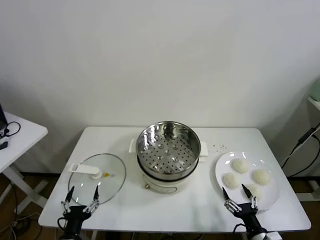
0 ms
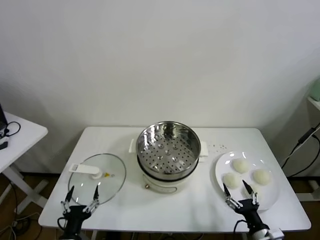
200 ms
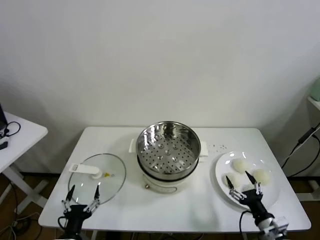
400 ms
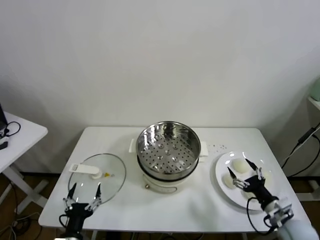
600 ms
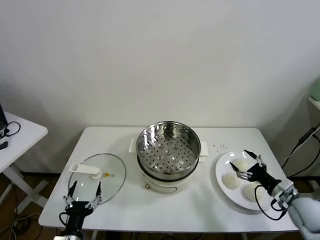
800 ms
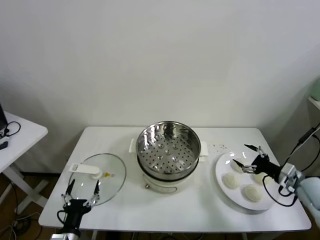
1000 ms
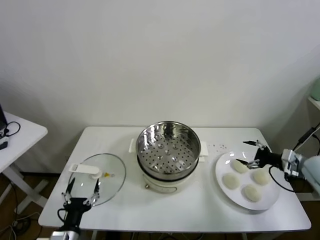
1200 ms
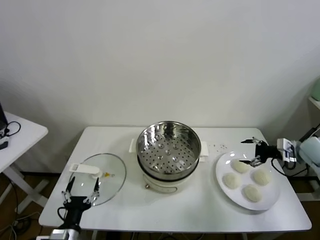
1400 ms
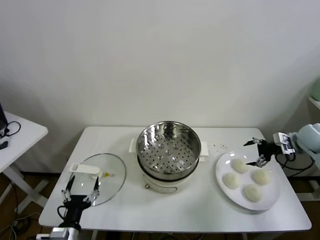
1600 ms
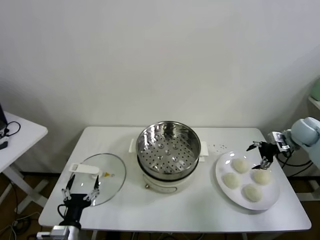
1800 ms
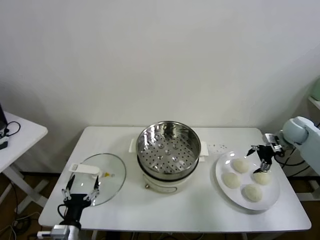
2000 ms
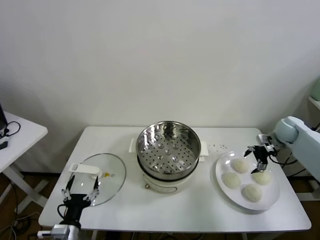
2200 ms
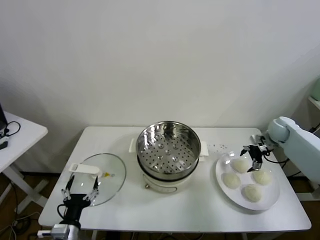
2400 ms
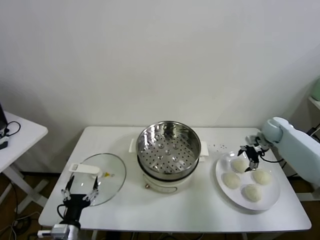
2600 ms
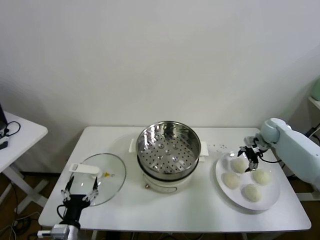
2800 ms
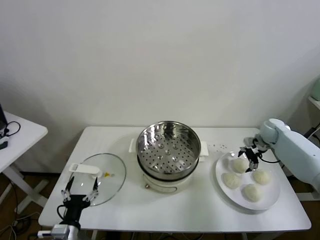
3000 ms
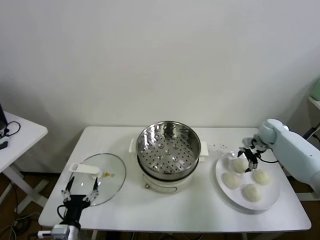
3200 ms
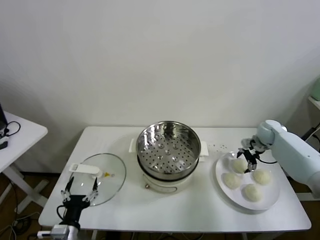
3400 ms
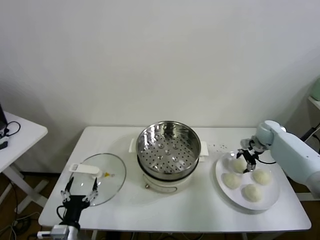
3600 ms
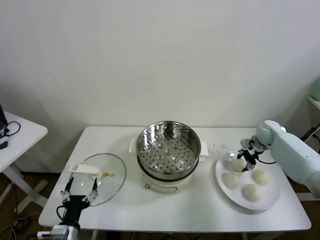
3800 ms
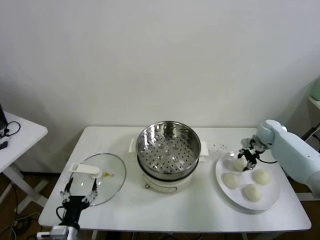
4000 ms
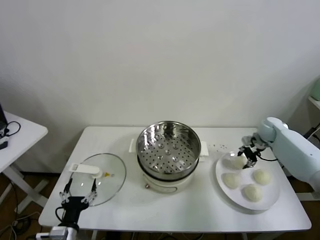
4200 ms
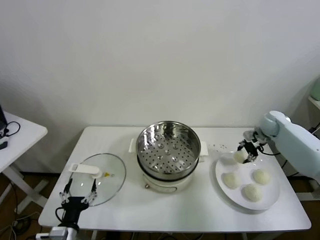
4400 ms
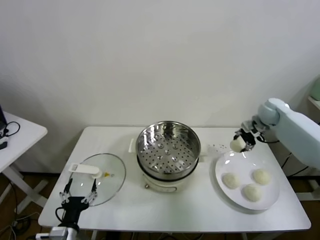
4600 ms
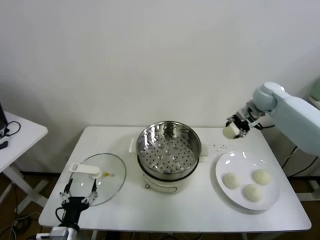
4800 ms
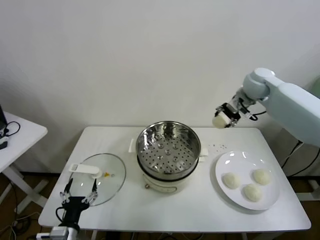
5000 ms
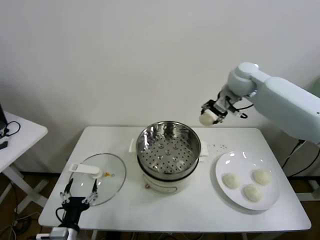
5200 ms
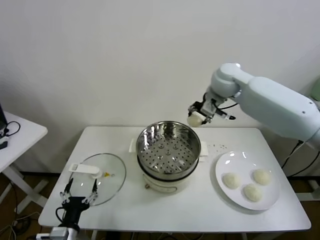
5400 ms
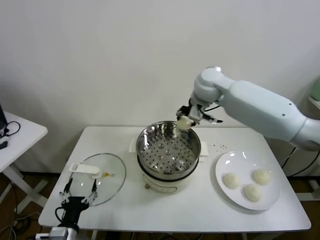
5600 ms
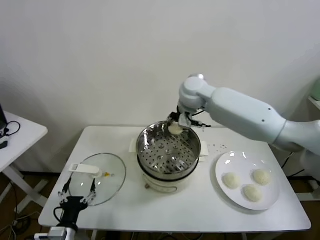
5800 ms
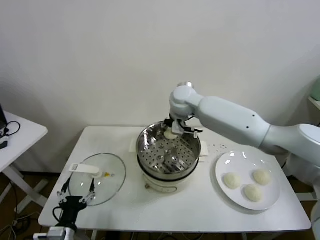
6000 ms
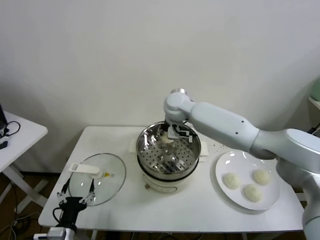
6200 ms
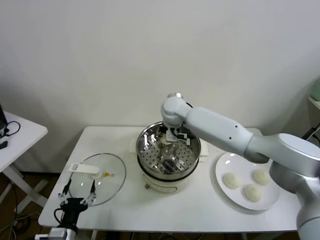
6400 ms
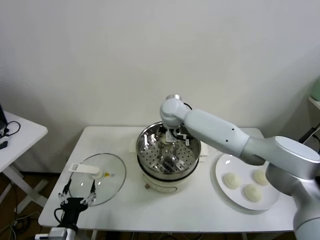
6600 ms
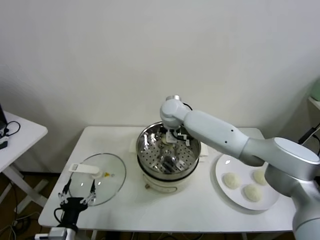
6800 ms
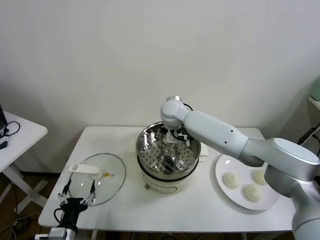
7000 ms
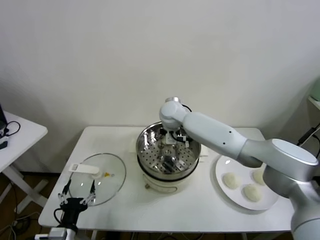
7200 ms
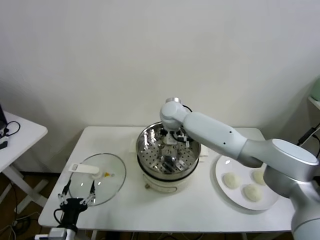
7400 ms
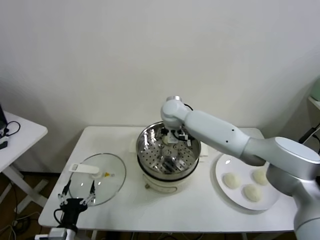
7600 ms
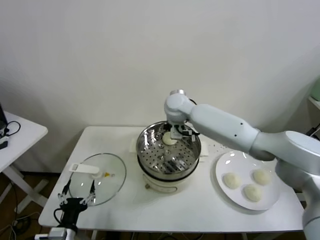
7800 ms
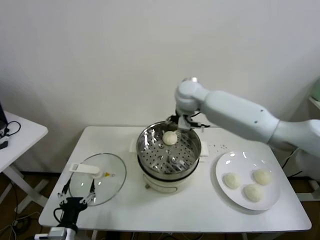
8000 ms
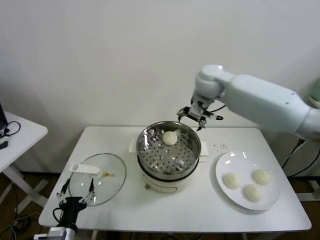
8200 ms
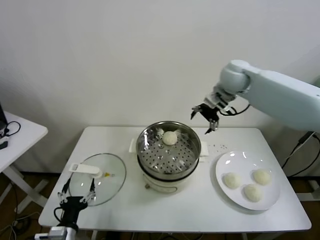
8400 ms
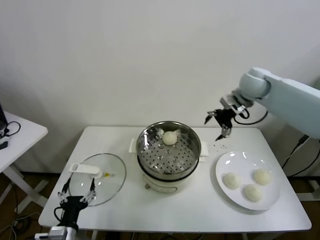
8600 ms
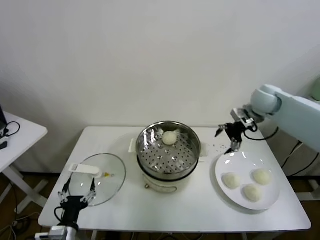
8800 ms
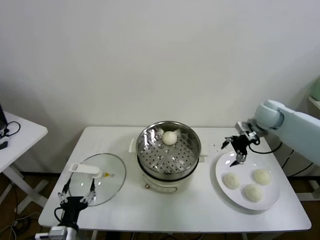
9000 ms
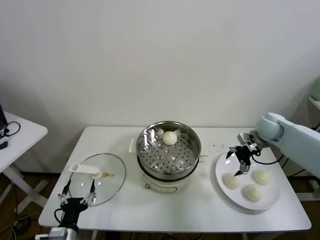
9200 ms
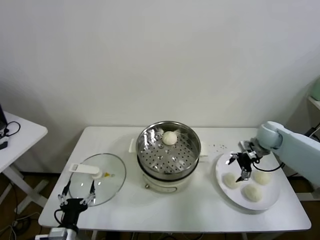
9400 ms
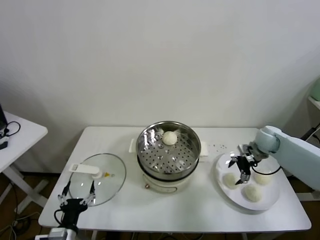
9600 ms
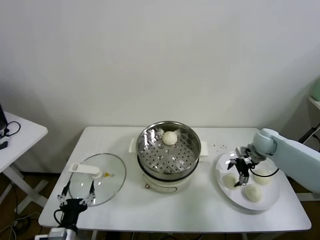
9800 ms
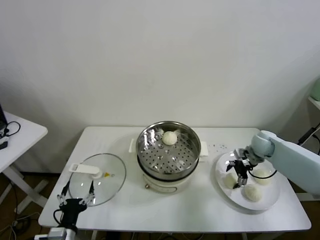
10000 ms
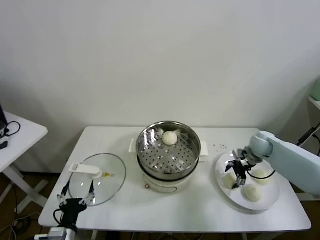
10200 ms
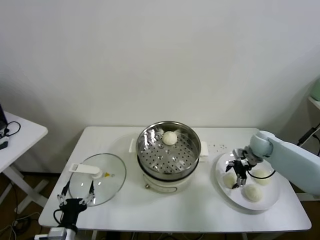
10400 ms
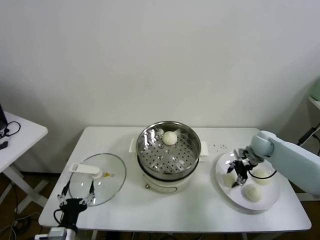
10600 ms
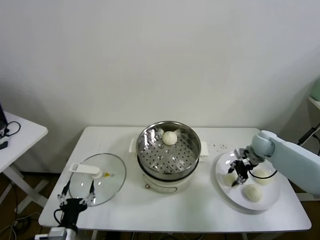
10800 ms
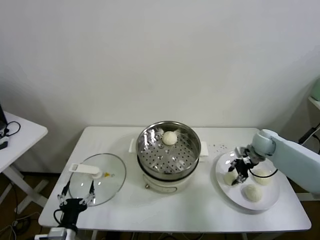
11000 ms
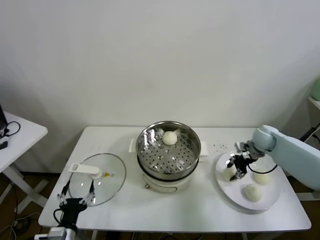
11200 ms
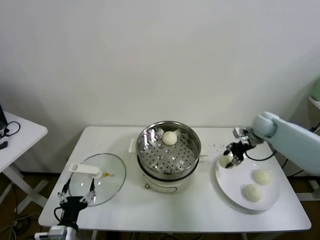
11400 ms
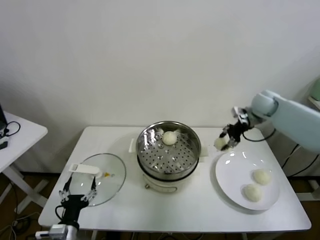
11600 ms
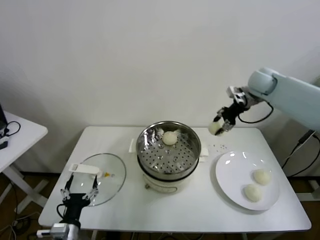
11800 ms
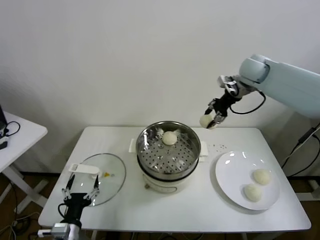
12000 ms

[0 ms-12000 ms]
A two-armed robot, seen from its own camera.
Task of the whole recording: take steamed baozi put them in steamer.
Step, 0 ms to 3600 ms: Grasp the baozi in the plate with right gripper.
Step, 3800 ms to 7400 ms: Place the baozi on the steamer with right gripper.
Step, 7600 ms to 10400 ms: Grasp the baozi in the plate with right gripper.
1600 ms to 3000 ms: The right gripper heads forward, downward and to the left, covering roughly 15 cm.
3000 ms to 4400 ms: The right gripper travels upward by roughly 5 cm, and closes.
4400 ms to 6000 ms: The right gripper moves to the left, roughly 35 cm.
6000 ms to 7600 ms: The right gripper opens up.
7600 ms to 9000 ms: The right gripper is displaced to the right by some 35 cm.
9000 ms to 10400 ms: The right gripper travels downward by some 10 cm.
10400 ms to 12000 ms: The right gripper goes some 30 cm upward, and closes its fingers.

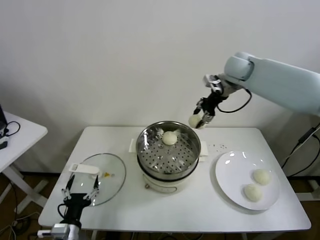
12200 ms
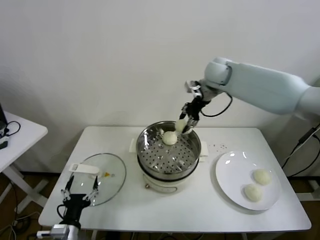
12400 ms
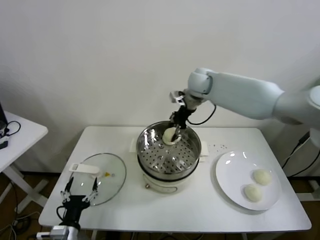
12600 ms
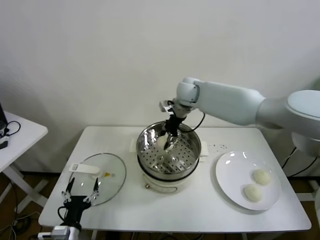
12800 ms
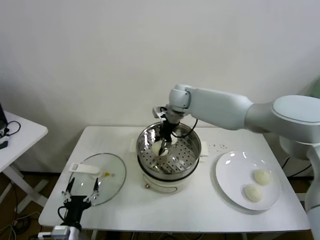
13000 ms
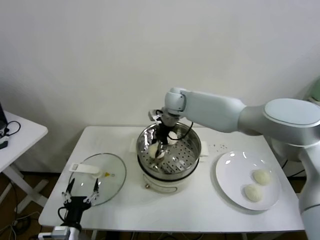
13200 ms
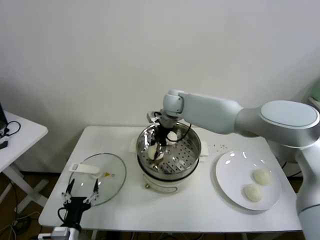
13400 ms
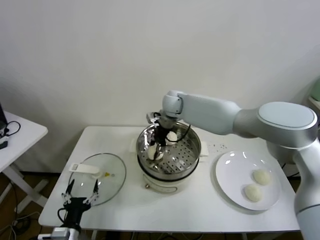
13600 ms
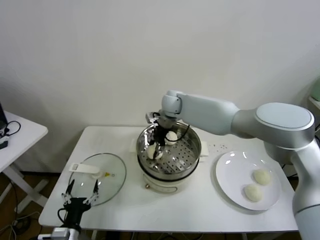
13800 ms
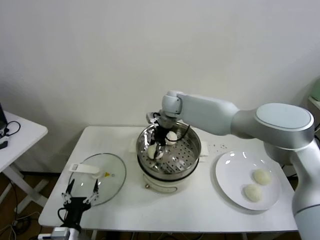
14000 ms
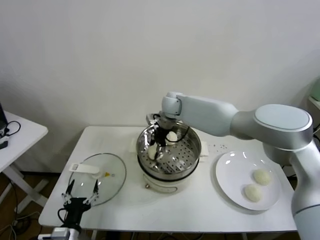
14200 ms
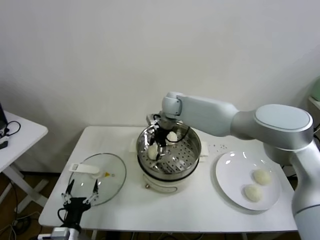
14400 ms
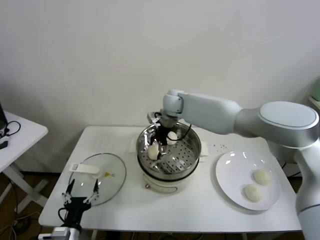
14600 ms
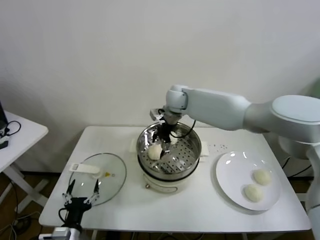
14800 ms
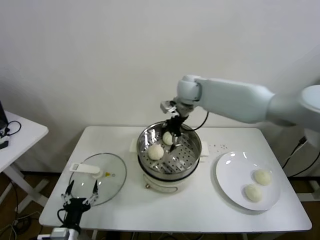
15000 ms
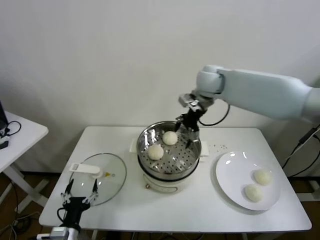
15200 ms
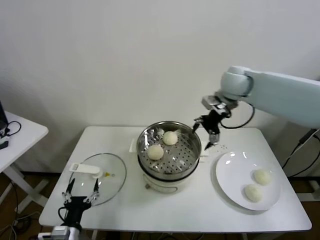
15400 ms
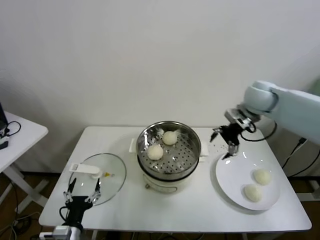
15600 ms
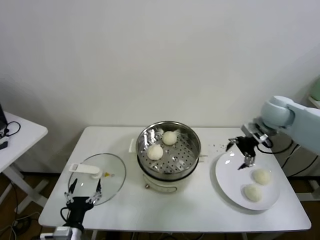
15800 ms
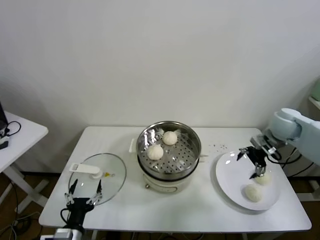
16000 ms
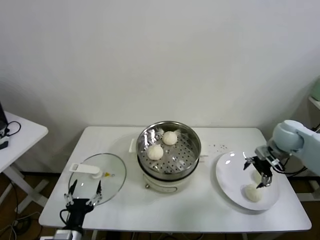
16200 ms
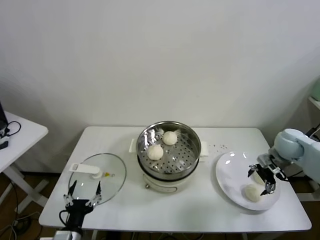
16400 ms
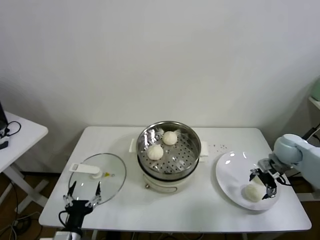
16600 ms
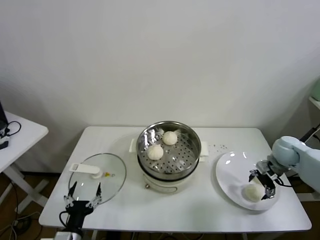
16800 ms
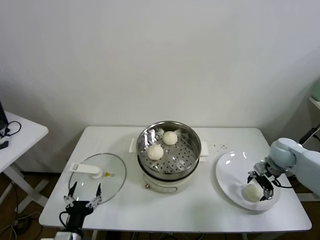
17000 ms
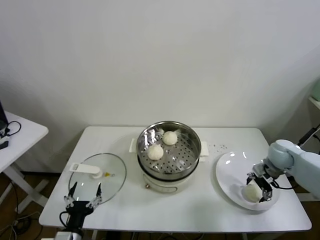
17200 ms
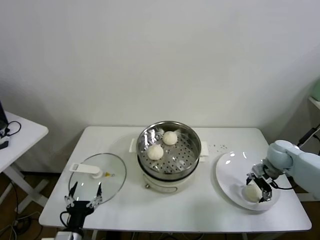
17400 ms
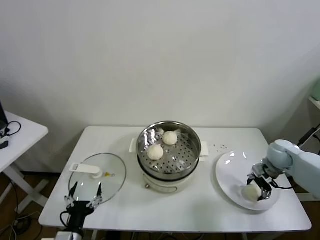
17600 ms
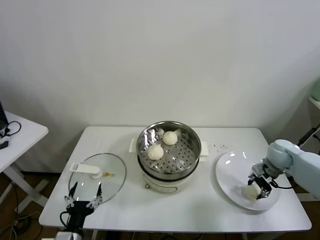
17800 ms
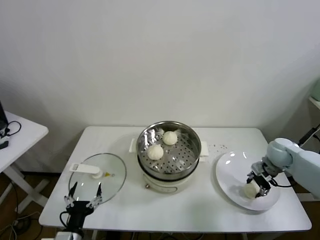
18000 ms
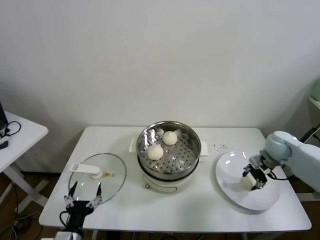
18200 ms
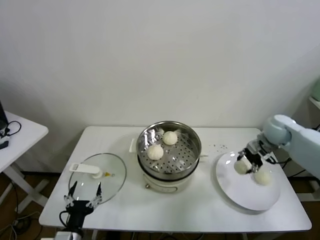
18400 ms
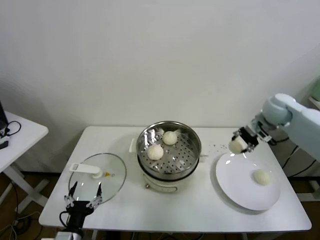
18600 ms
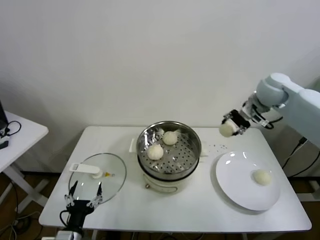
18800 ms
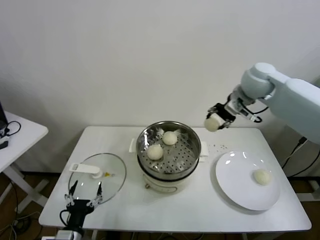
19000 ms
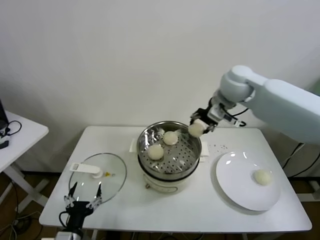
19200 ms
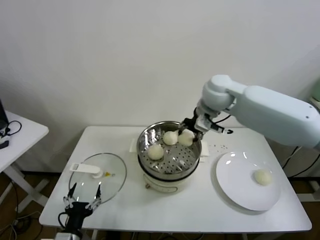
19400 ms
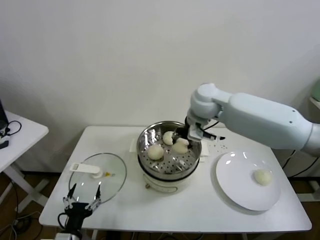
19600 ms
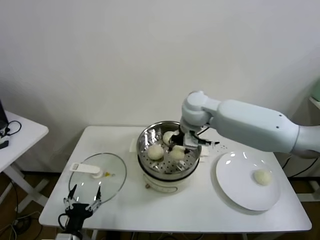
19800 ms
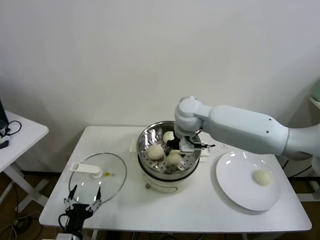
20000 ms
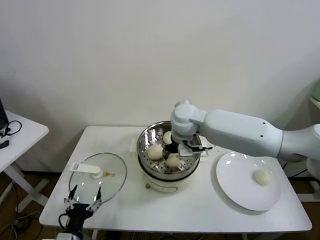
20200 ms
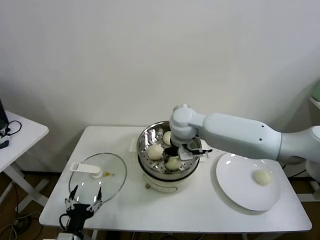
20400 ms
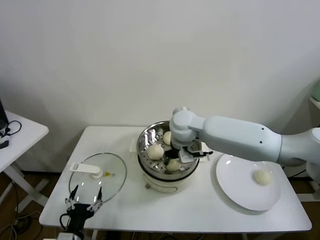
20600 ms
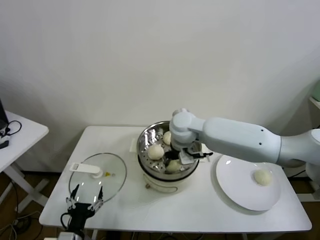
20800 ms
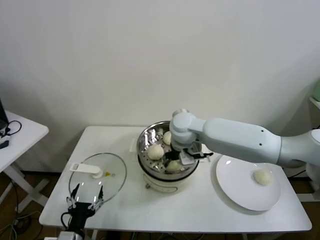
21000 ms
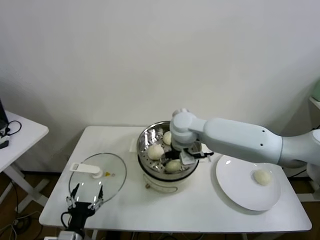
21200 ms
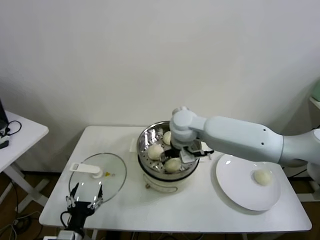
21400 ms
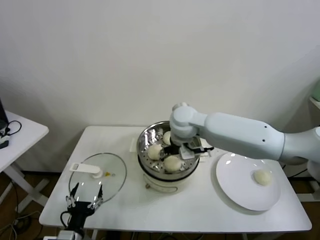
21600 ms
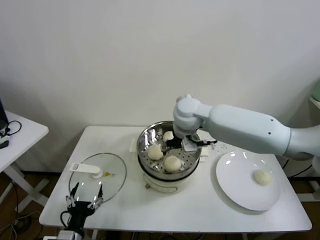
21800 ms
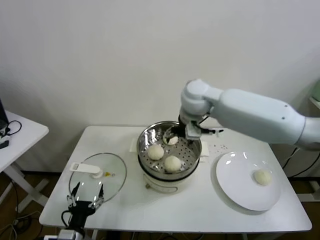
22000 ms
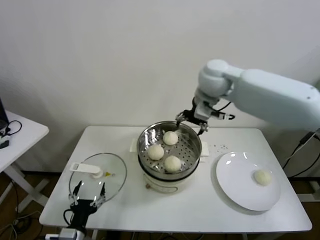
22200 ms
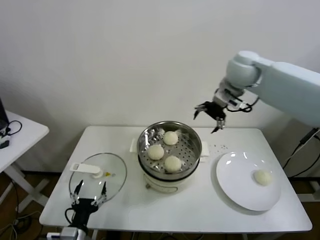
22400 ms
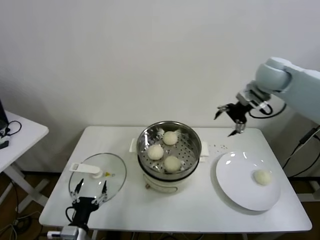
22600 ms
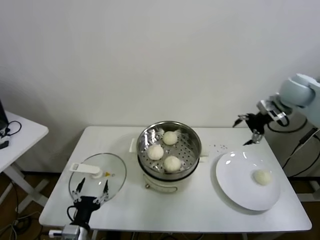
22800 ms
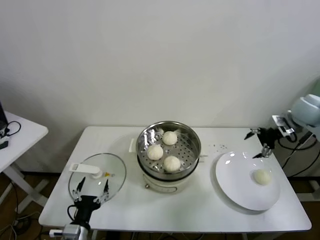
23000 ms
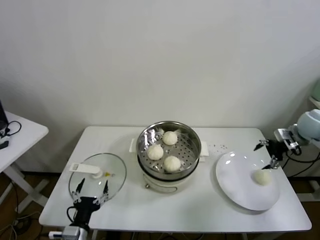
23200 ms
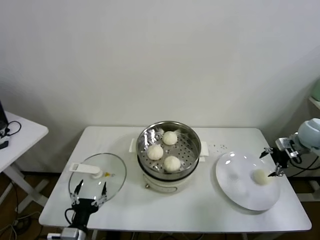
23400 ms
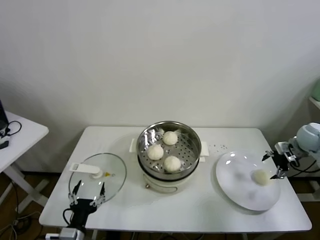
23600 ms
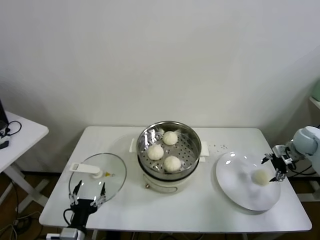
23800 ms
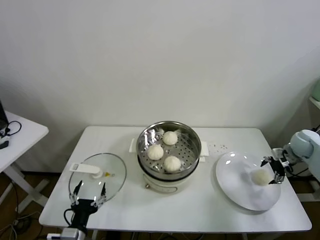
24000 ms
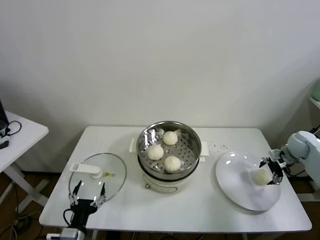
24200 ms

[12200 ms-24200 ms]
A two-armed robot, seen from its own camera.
Task of the whole recording: take steamed baozi put them in steamer.
Step, 12200 ms to 14400 ms: Place the baozi on the steamer with right gripper.
Step, 14600 ms to 17400 ms: Grasp the baozi in the plate with right gripper.
Step, 17800 ms to 21200 ms: Place the baozi on the steamer with right gripper.
12200 ms to 13800 ms: The right gripper travels to the left and downward by some 25 cm.
13800 ms to 15200 ms: The right gripper heads to the right and upward, covering roughly 15 cm, and opens its fingers.
15200 ms to 16600 ms: The right gripper is displaced to the right, downward and backward by approximately 35 cm.
16600 ms to 18200 ms: The right gripper closes.
18200 ms to 19800 ms: The right gripper goes some 35 cm to the left and upward.
19800 ms to 21200 ms: The right gripper changes place by approximately 5 cm, and opens its fingers.
21200 ms to 22600 ms: The right gripper shifts some 30 cm to the right and upward.
22600 ms to 24200 ms: The right gripper heads downward and to the right, covering roughly 35 cm.
